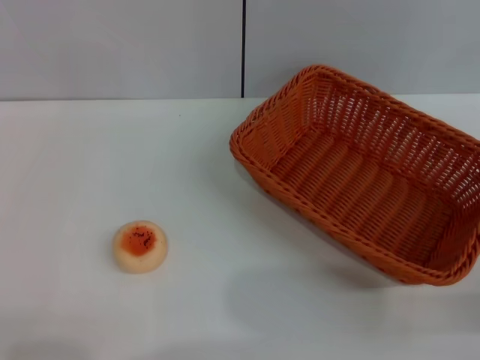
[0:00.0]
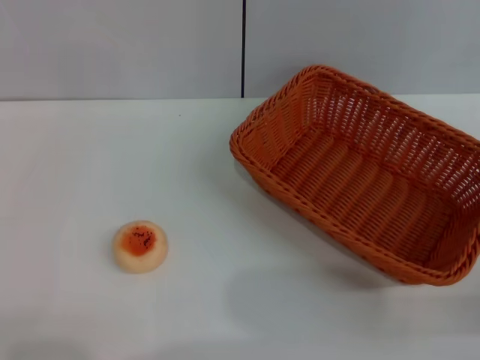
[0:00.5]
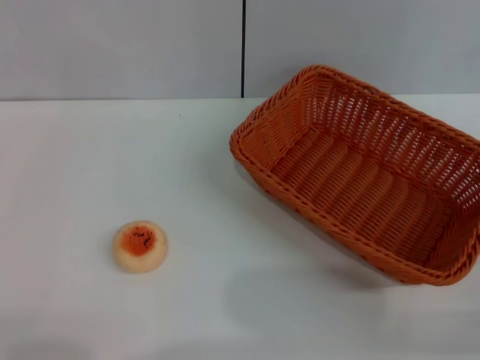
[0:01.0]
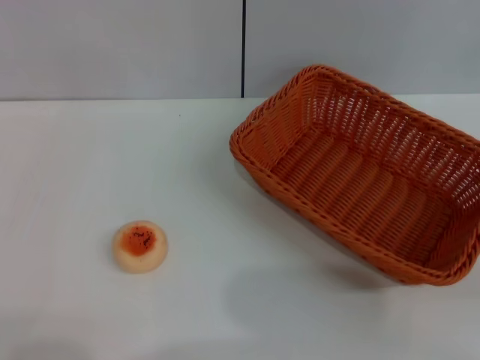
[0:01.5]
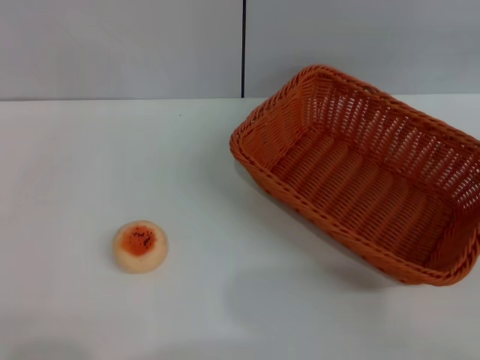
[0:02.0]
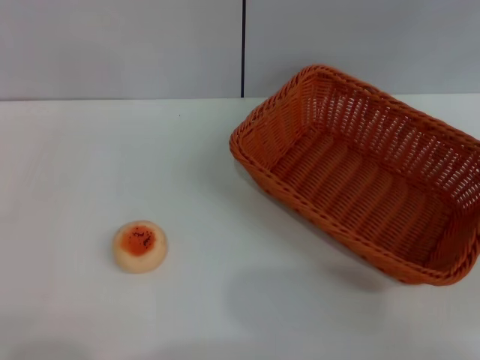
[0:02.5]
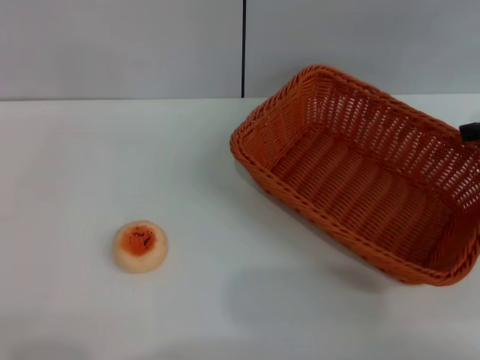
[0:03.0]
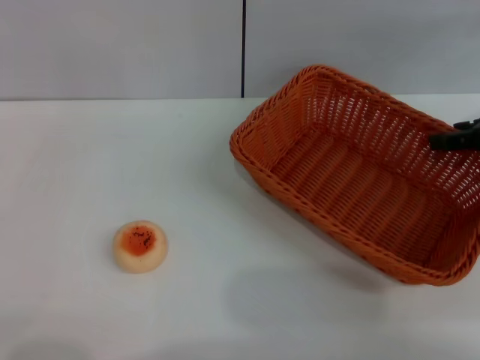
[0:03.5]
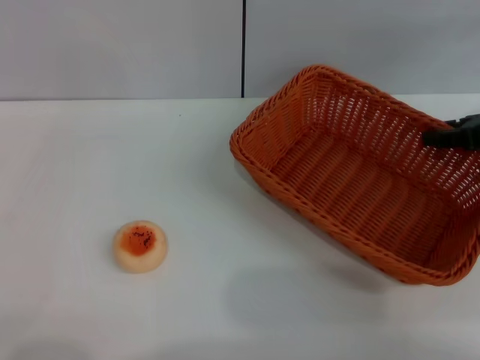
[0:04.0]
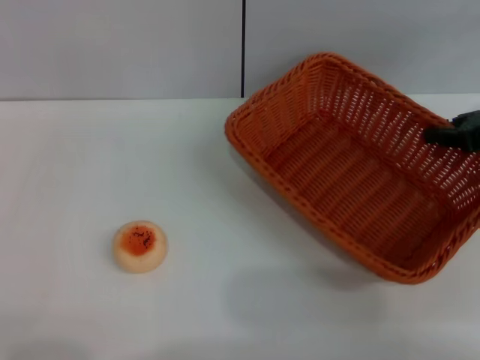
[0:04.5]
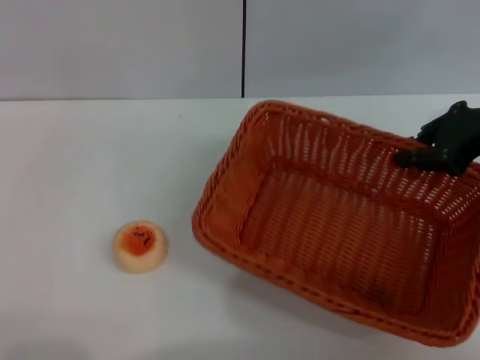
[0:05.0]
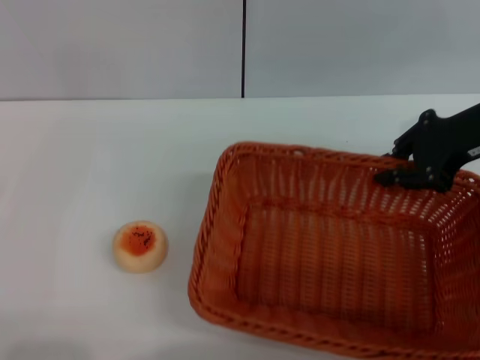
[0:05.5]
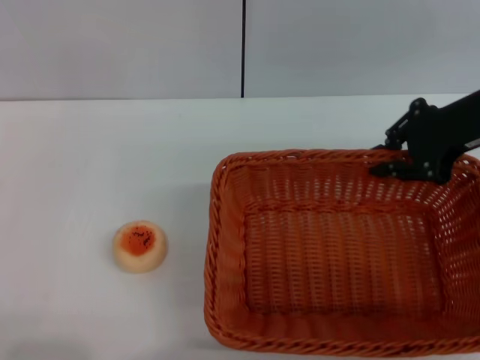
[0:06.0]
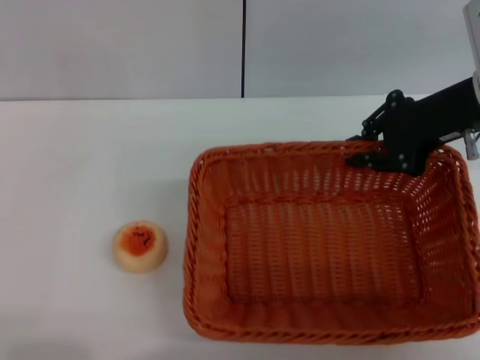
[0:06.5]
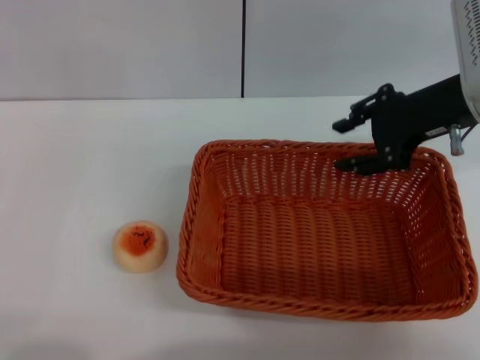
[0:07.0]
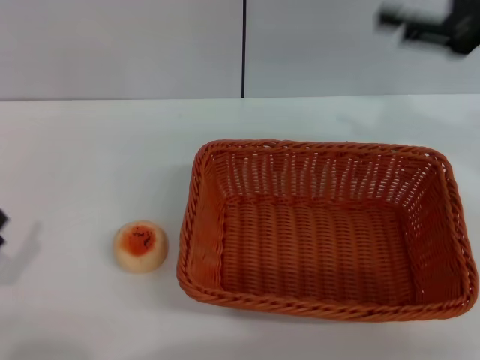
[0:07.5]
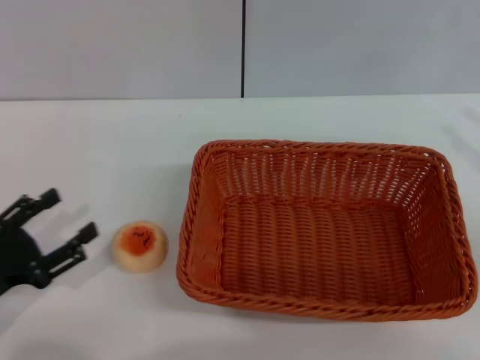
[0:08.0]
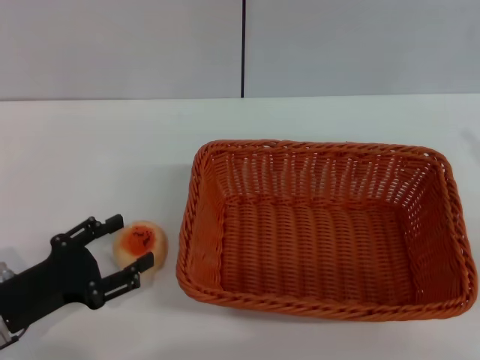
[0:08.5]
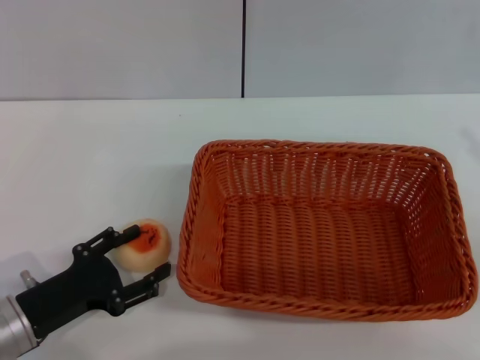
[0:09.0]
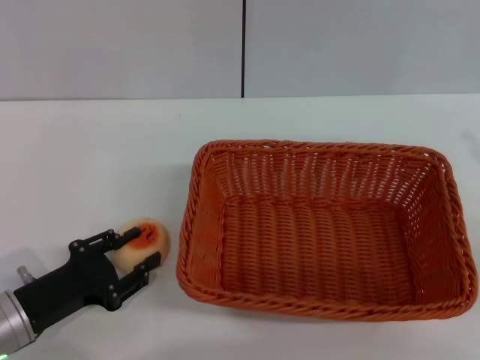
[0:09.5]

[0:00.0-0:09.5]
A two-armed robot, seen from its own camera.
Step, 0:00.0 to 0:07.0: Move the basket to the center of view with the right gripper.
0:02.0 to 0:04.0: The right gripper shifts about 15 cm to the left, forward and downward.
0:04.0 to 0:05.5: The right gripper is displaced to the left by roughly 5 cm, and closes its fingers.
0:05.5 to 0:07.5: The right gripper moves some 5 cm, and opens up.
0:07.5 to 0:09.5: The right gripper heads backward, to the right and downward, covering about 15 cm, while the left gripper travels to the right and forward by roughly 10 cm.

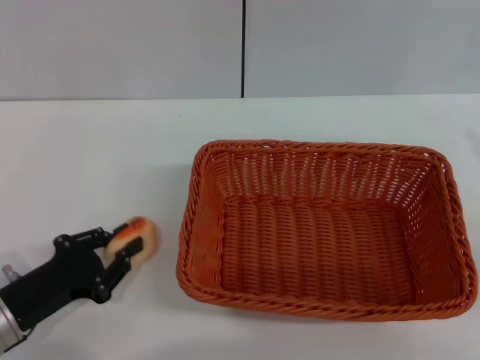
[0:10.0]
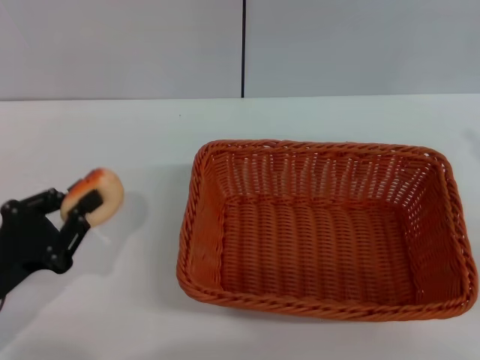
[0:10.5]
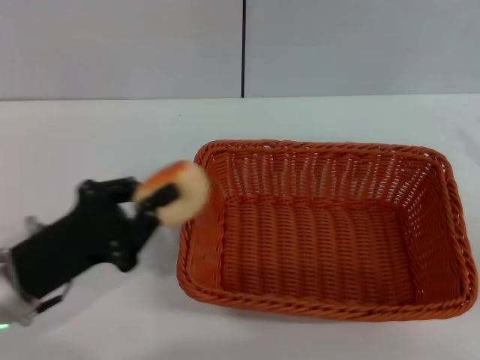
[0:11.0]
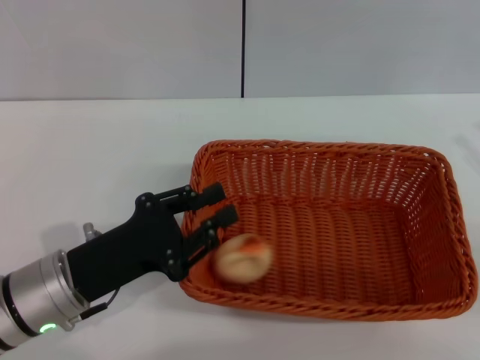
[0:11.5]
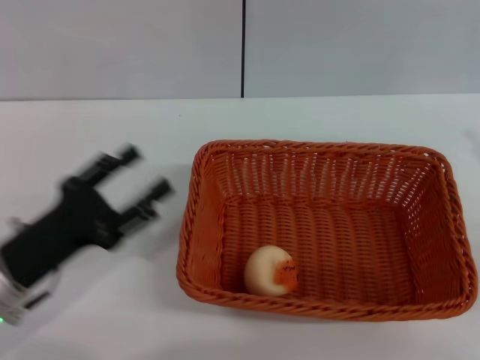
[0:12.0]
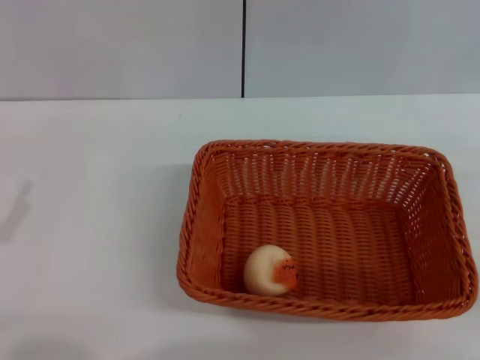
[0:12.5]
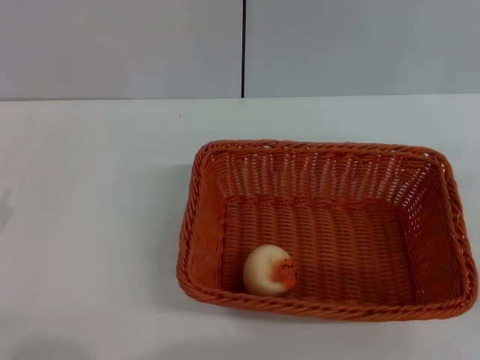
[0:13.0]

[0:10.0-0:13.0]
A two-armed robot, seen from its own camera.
Step, 0:10.5 to 0:11.5: Place the egg yolk pastry into the basket with the left gripper.
0:10.0 to 0:11.5: The left gripper heads to the right, covering some 5 cm.
0:11.5 to 0:13.0: The left gripper shifts roughly 15 cm to the left and backward, and opens its fingers, while the right gripper shifts approximately 5 cm downward.
